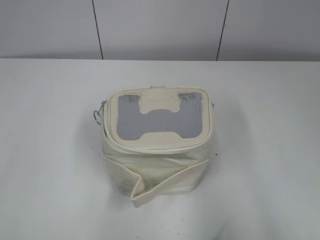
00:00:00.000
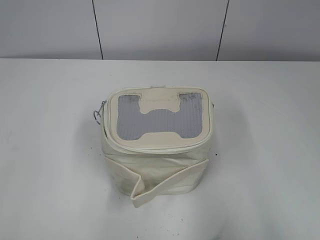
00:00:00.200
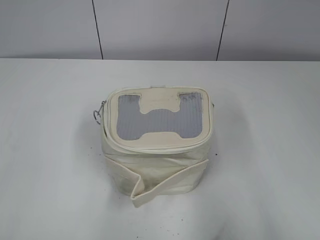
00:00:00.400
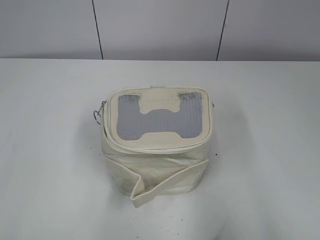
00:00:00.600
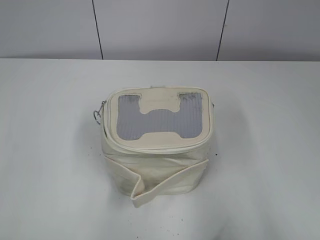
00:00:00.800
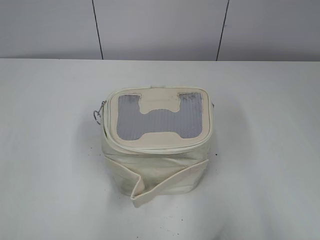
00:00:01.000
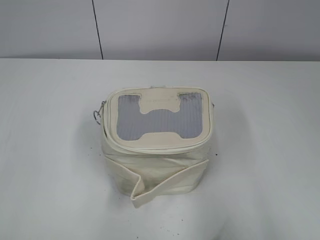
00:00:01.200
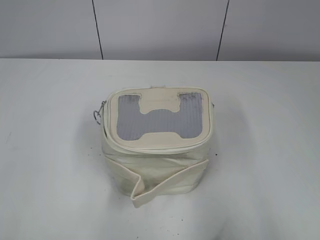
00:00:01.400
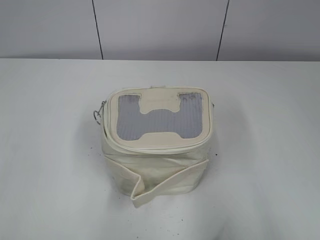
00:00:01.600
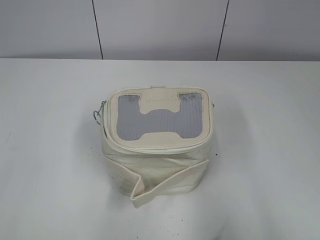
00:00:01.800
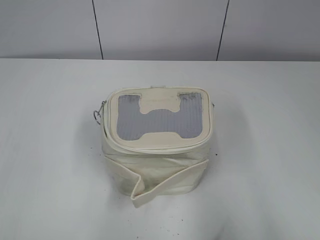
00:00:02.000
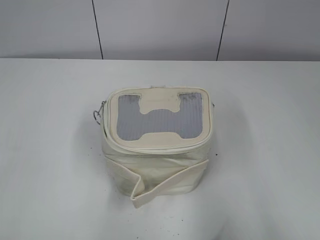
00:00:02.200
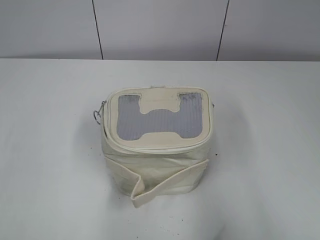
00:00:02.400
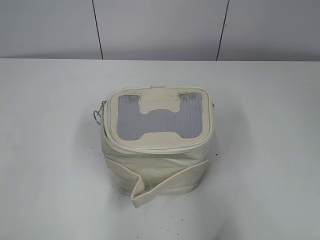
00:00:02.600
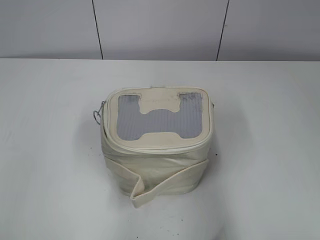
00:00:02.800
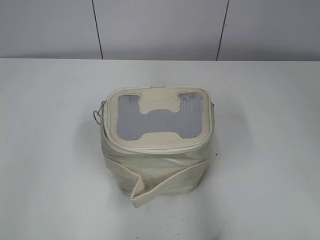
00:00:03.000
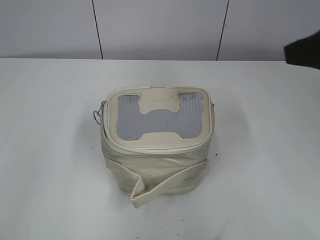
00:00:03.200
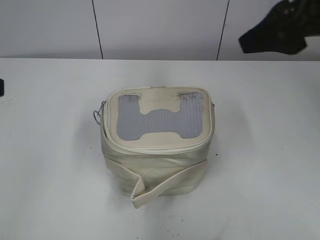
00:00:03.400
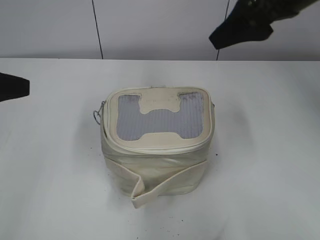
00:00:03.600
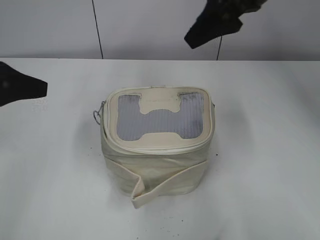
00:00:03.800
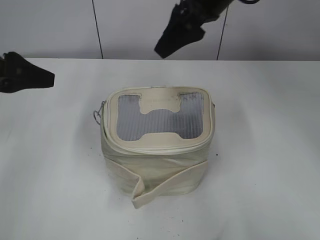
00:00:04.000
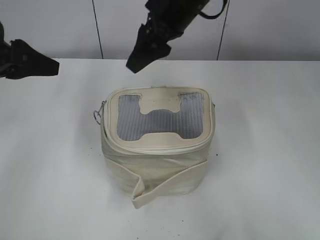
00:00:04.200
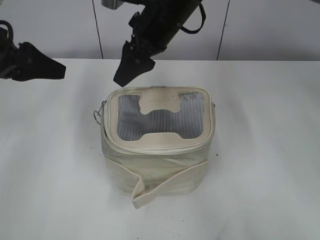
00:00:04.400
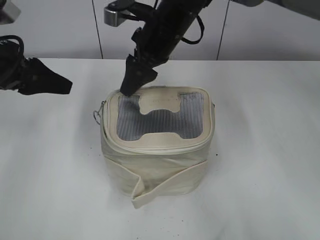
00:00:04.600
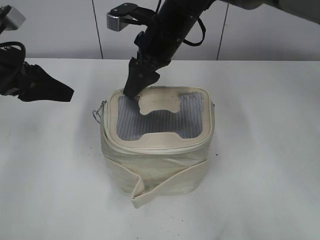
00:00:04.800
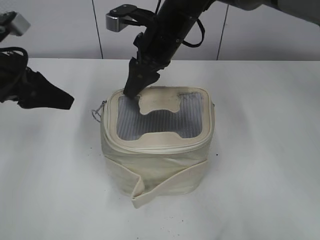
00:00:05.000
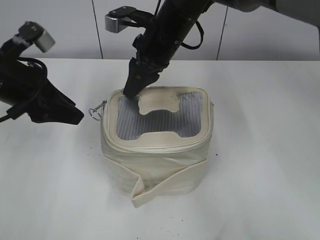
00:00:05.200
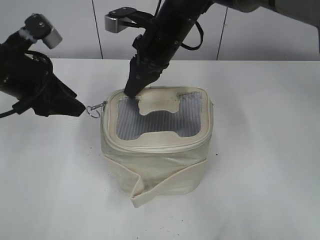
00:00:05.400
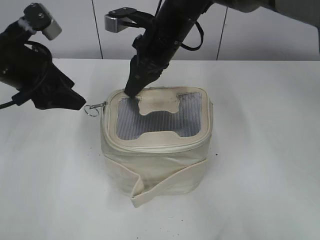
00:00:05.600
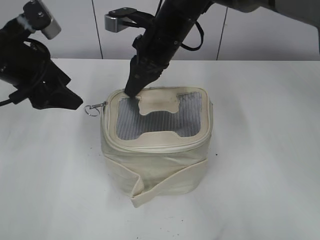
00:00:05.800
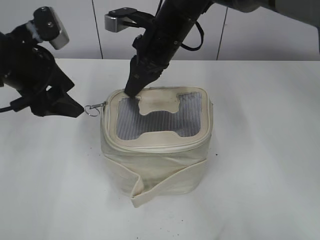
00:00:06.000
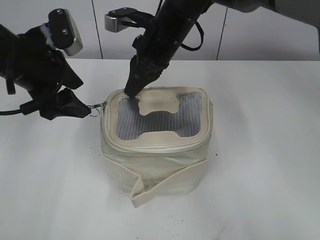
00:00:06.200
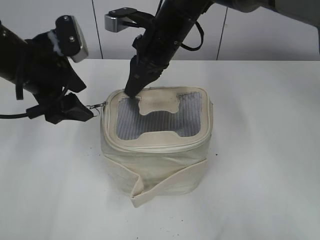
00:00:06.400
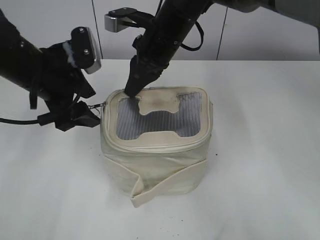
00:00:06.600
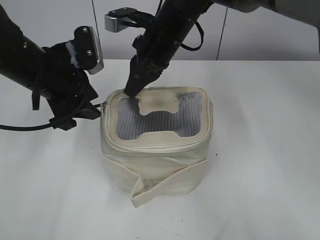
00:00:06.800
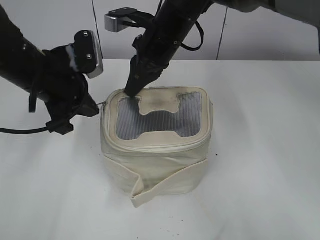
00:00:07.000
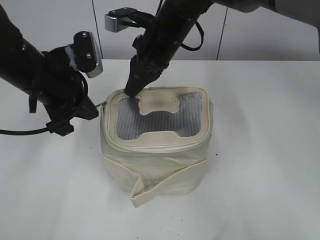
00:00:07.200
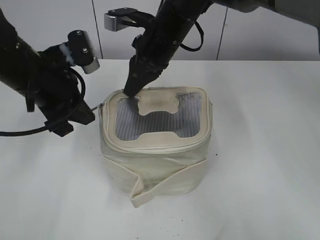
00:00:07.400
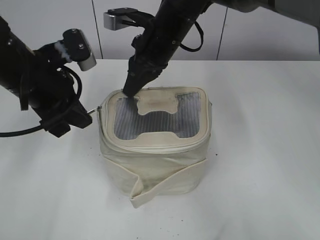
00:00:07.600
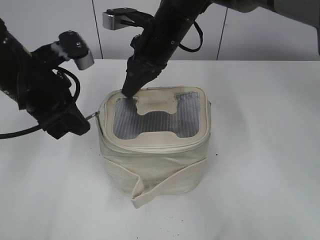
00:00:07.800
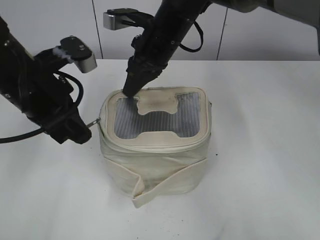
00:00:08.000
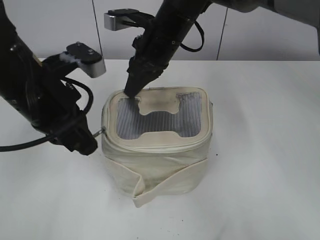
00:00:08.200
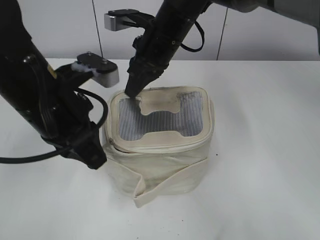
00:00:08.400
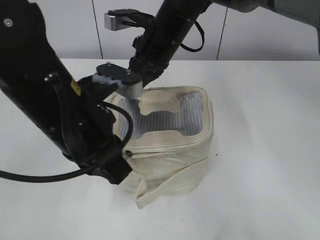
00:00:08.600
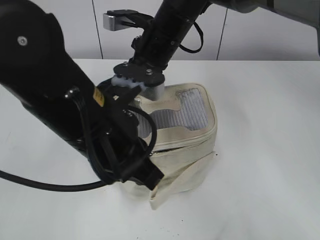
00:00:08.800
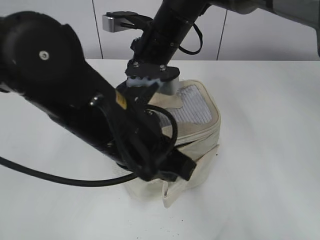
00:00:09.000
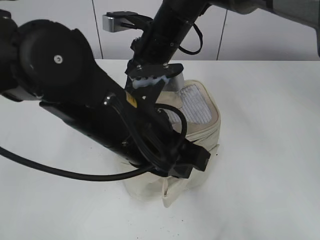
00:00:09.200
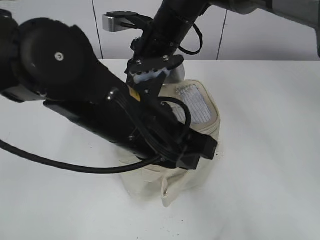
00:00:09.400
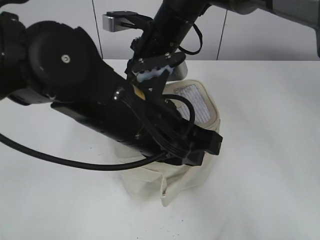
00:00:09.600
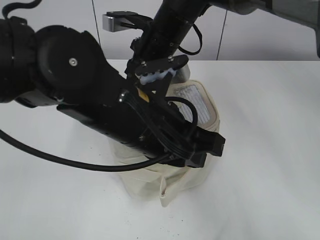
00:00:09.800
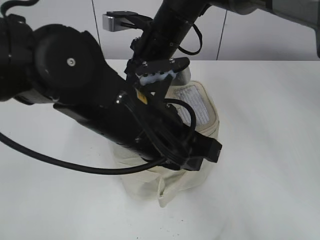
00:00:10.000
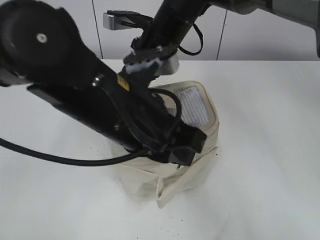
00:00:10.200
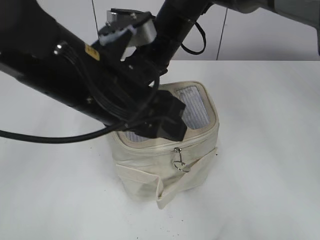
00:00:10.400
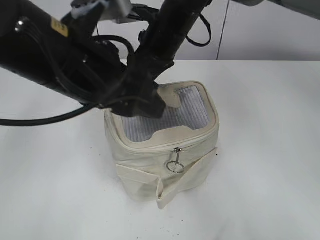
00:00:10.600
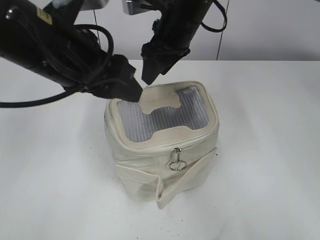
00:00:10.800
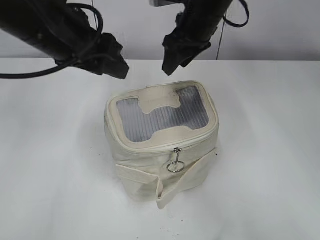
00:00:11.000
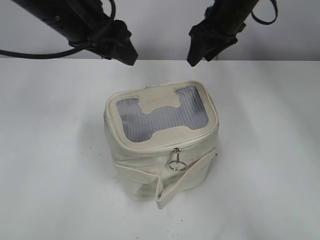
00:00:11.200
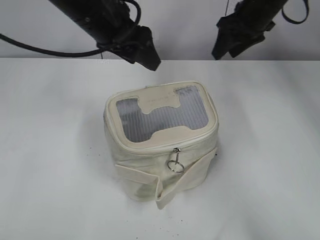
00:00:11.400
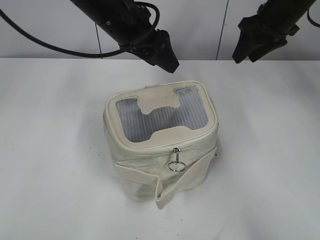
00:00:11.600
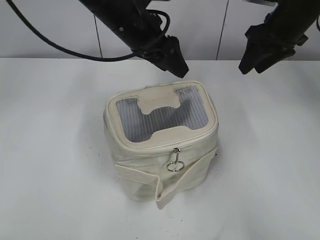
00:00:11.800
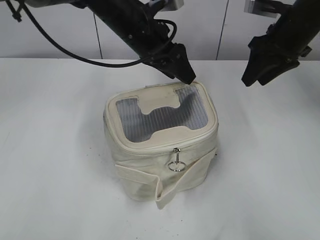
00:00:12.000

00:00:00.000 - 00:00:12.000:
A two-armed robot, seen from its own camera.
Step, 00:00:00.000 - 00:00:10.200: Zip up the bag with your left hand.
Step, 00:00:10.400 - 00:00:10.600: Hold the bag with your right hand.
00:00:01.600 - 00:00:03.000: The two grippers go some 10 cm forward.
00:00:03.000 - 00:00:04.400: The right gripper goes approximately 35 cm forward and to the left. Meanwhile the left gripper travels forward by some 20 cm.
00:00:04.400 - 00:00:06.000: The right gripper closes.
00:00:06.000 - 00:00:07.600: The left gripper closes its fingers.
00:00:07.600 - 00:00:09.000: The left gripper is displaced to the right and backward by approximately 15 cm.
00:00:09.000 - 00:00:10.400: The right gripper opens its fingers. Meanwhile the left gripper opens.
00:00:10.400 - 00:00:12.000: The right gripper goes roughly 20 cm to the right; the left gripper shifts about 20 cm forward.

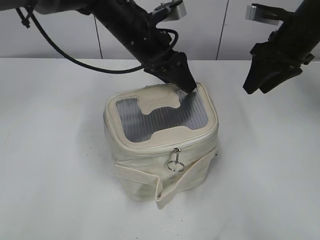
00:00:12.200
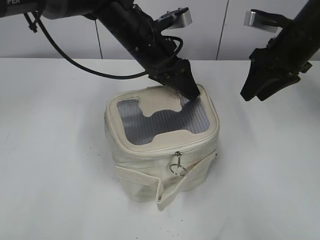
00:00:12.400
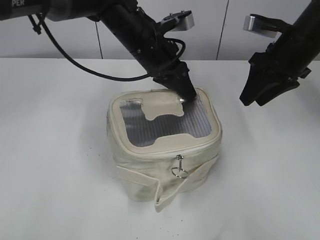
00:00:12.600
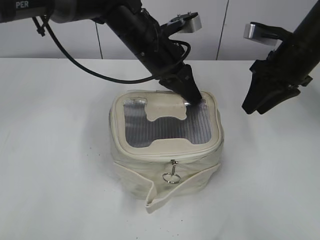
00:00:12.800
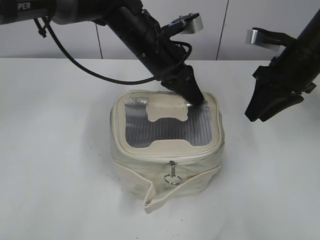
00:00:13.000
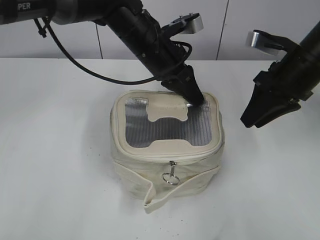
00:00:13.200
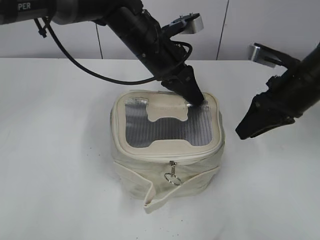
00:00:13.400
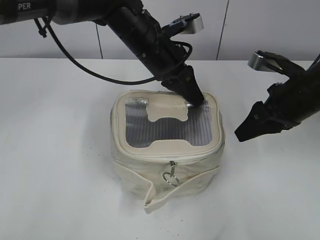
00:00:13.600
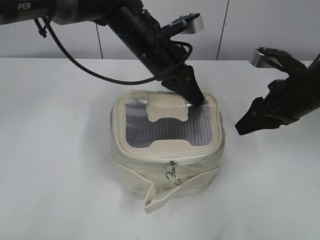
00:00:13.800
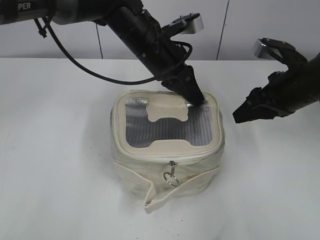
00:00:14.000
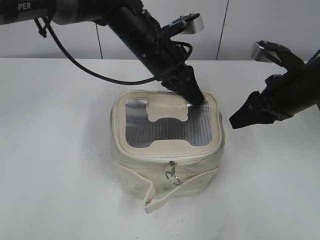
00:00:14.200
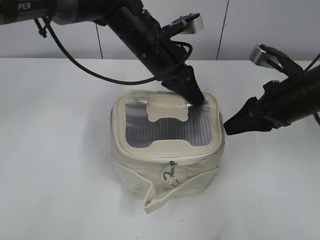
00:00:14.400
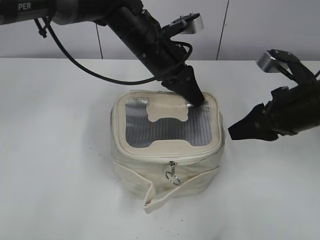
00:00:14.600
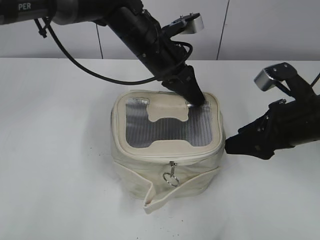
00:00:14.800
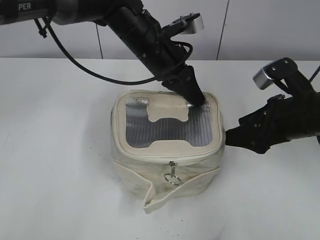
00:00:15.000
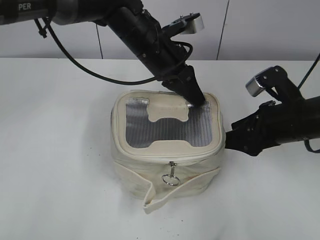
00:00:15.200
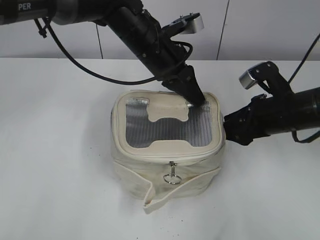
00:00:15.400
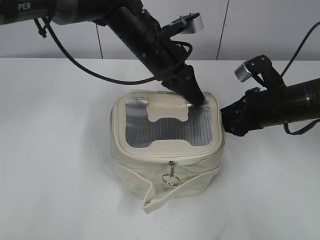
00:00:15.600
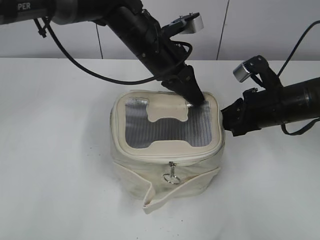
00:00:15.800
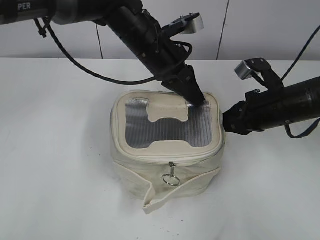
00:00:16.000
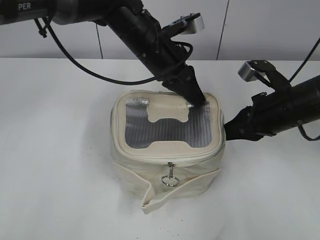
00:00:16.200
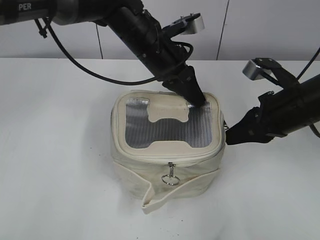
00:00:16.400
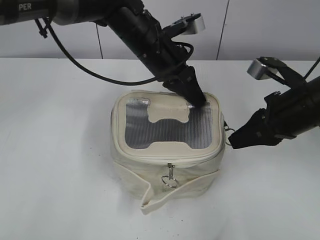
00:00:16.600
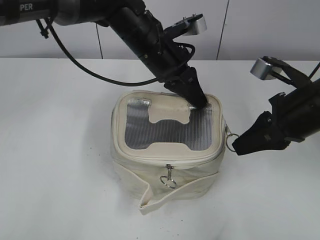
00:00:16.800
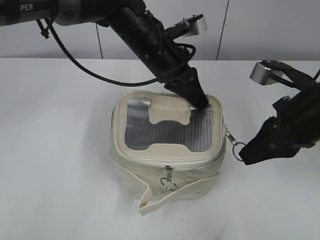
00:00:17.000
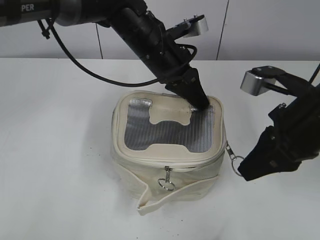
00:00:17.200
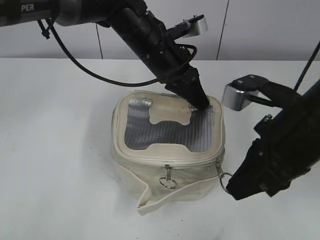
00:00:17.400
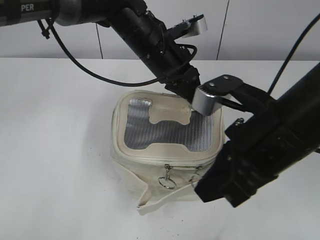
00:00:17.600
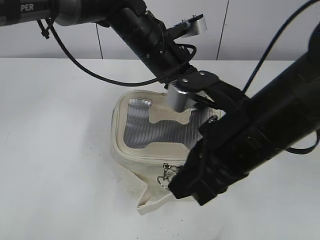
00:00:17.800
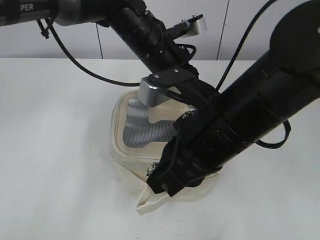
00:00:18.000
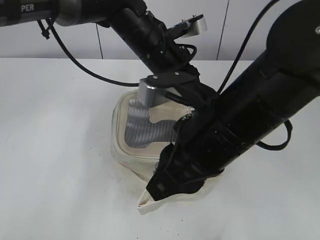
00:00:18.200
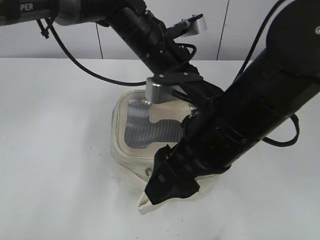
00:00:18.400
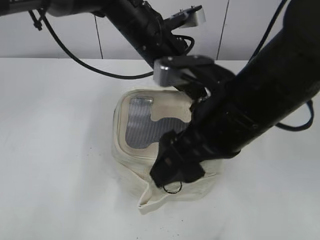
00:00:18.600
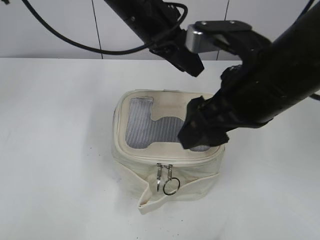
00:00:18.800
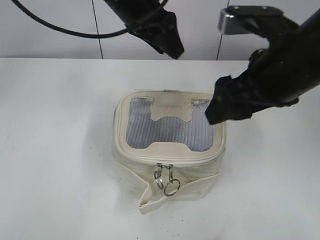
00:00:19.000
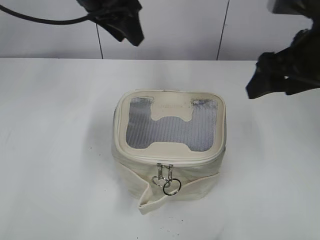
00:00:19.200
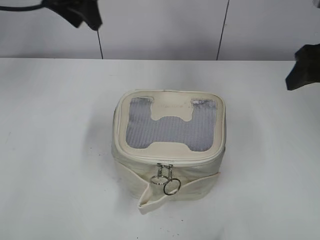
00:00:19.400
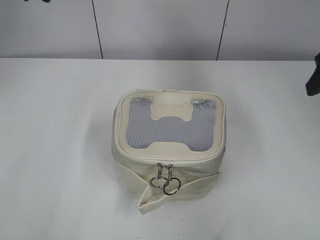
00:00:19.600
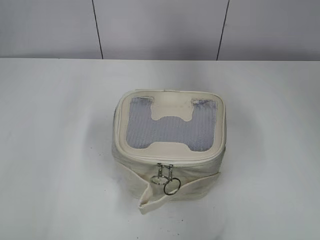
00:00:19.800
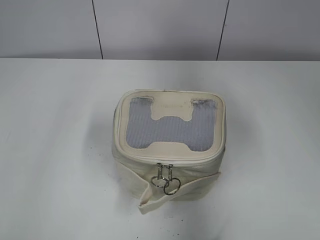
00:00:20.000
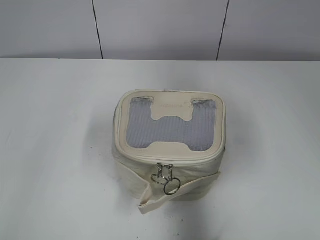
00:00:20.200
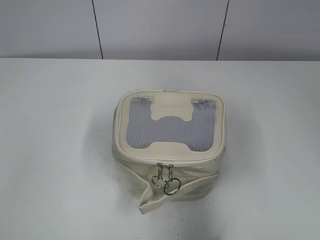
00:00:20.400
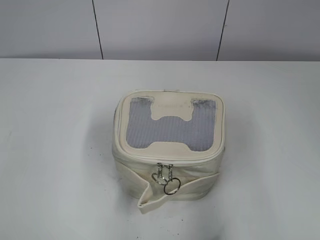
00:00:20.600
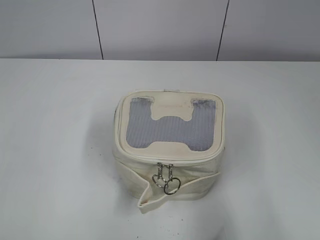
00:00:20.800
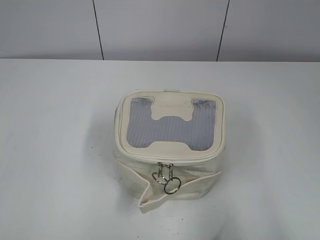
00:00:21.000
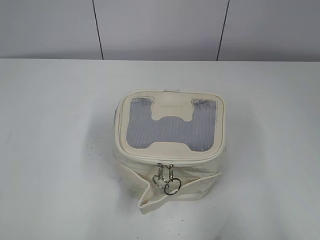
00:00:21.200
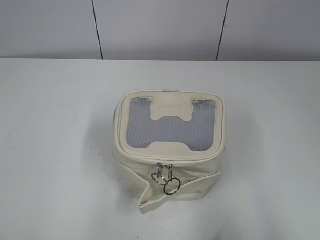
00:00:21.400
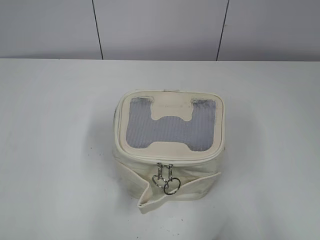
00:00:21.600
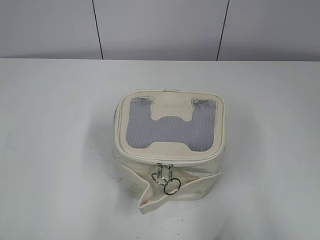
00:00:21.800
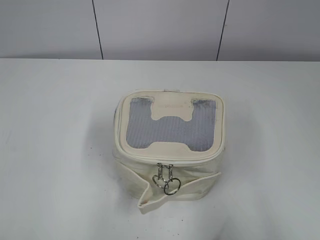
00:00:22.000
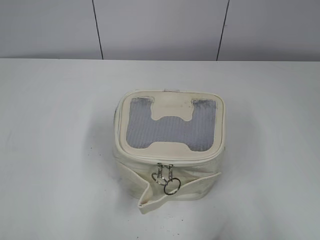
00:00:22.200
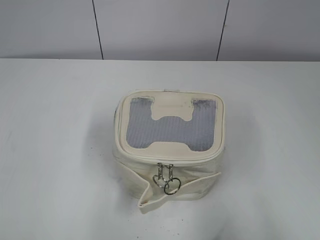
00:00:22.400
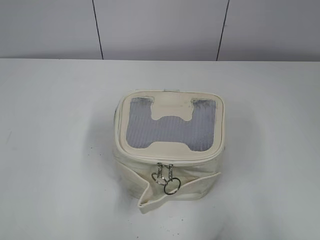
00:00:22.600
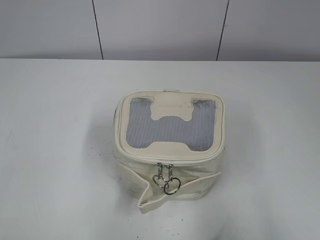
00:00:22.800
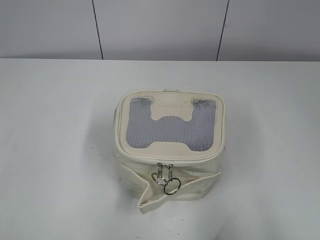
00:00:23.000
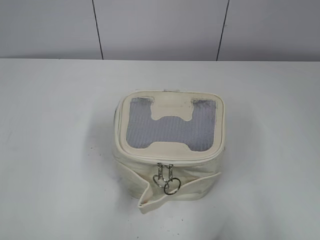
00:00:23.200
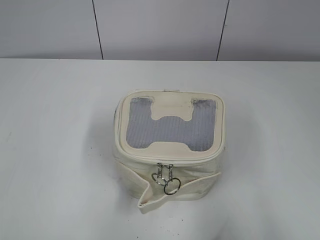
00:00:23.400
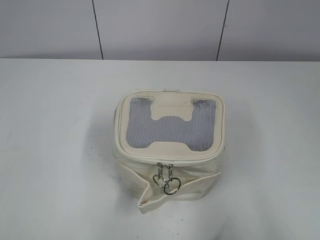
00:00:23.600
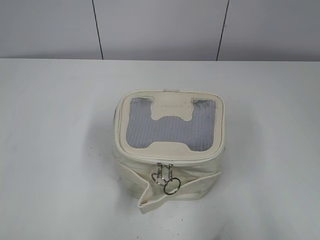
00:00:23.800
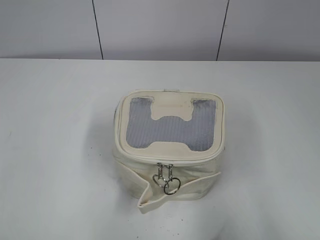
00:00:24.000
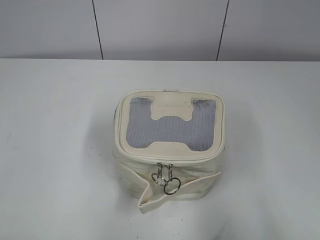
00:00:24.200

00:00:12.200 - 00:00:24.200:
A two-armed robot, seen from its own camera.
Step, 00:00:12.200 - 00:00:18.000: Zip up the bag with your right hand.
Step, 00:00:18.400 - 00:00:18.600: Hold the bag with your left hand.
00:00:12.200 - 00:00:13.800: The right gripper travels backward and downward by approximately 10 cm. The left gripper closes.
00:00:13.800 - 00:00:15.200: The right gripper moves some 5 cm.
00:00:15.200 - 00:00:16.600: The right gripper closes up.
00:00:16.600 - 00:00:18.200: The right gripper is displaced to the left and backward by about 15 cm.
00:00:18.200 - 00:00:19.800: The right gripper heads to the right, covering about 20 cm, and opens up. Meanwhile the left gripper moves to the left and upward, about 30 cm, and opens.
00:00:19.800 - 00:00:21.200: Both grippers move backward, approximately 30 cm.
00:00:22.600 - 00:00:24.200: The two grippers keep their place.
